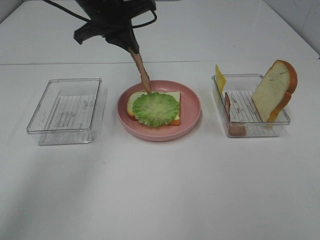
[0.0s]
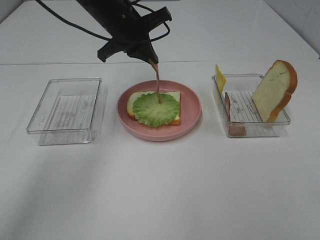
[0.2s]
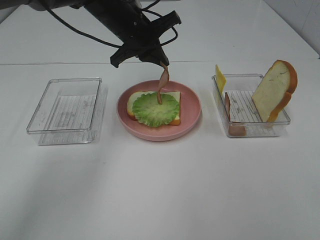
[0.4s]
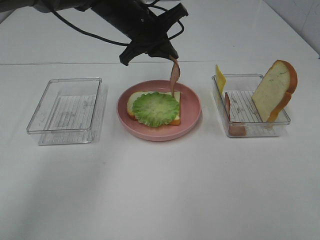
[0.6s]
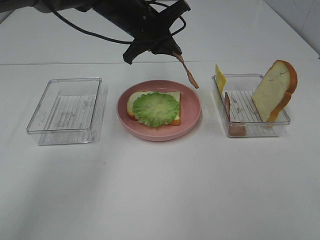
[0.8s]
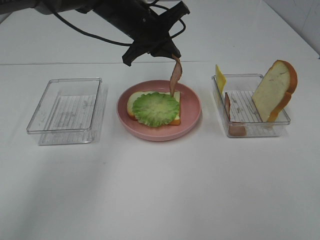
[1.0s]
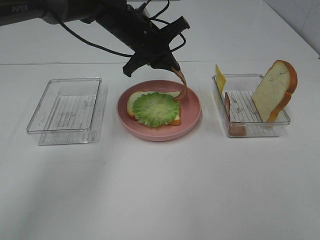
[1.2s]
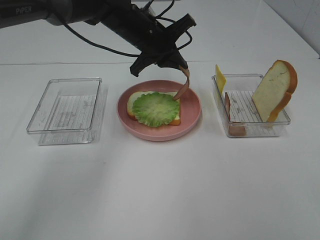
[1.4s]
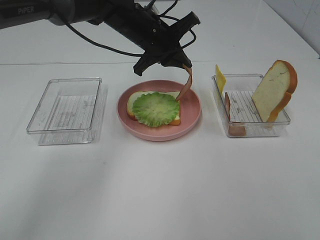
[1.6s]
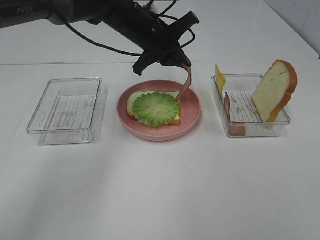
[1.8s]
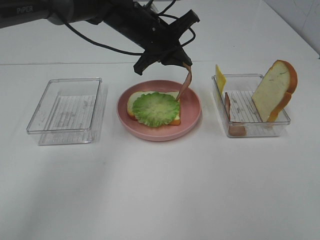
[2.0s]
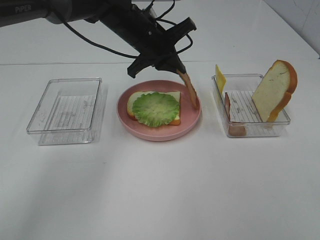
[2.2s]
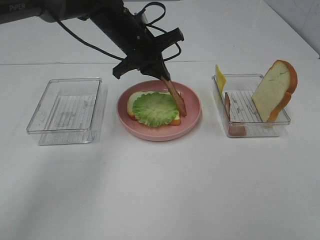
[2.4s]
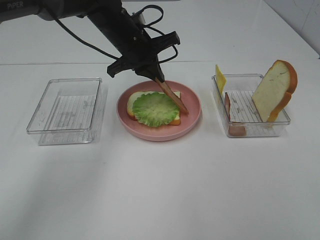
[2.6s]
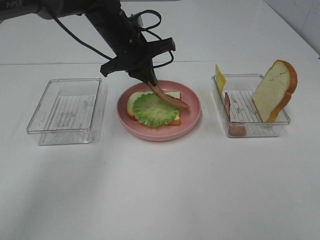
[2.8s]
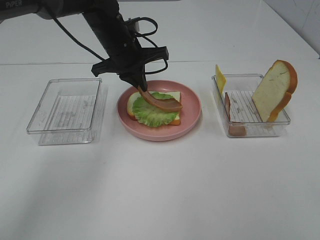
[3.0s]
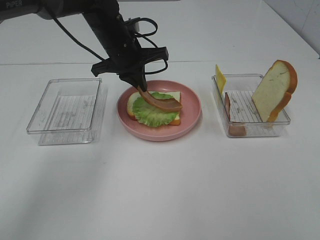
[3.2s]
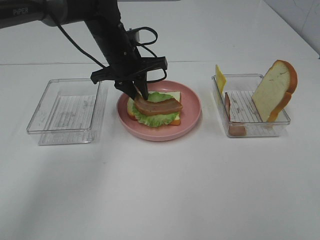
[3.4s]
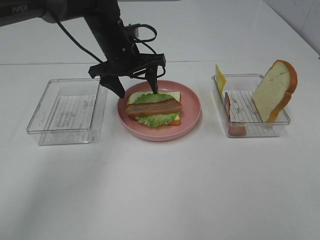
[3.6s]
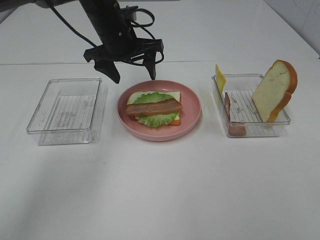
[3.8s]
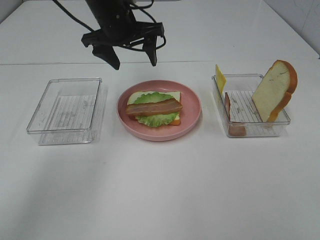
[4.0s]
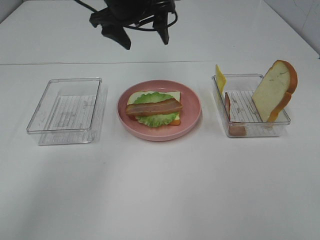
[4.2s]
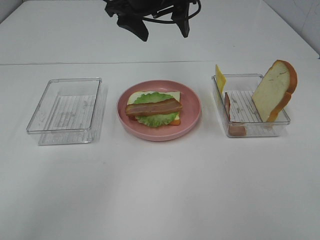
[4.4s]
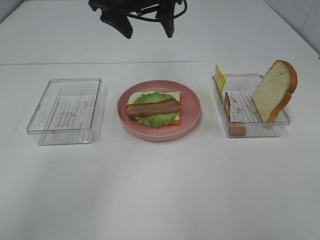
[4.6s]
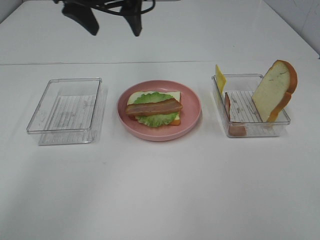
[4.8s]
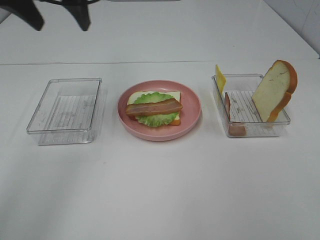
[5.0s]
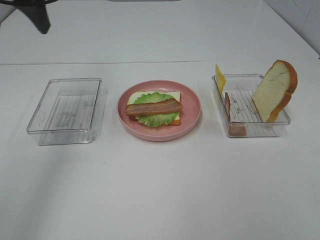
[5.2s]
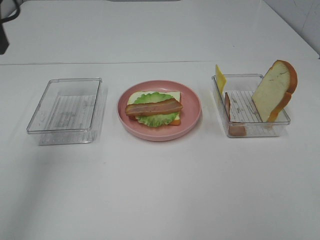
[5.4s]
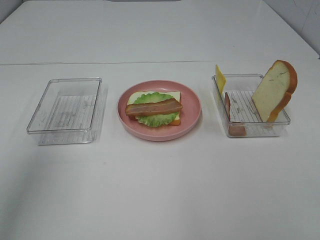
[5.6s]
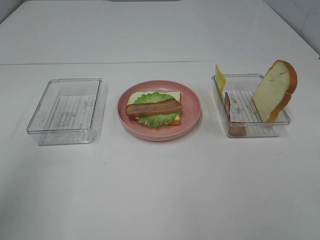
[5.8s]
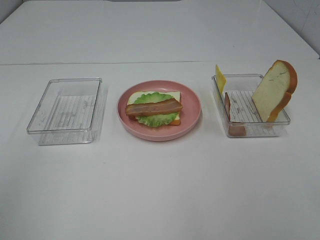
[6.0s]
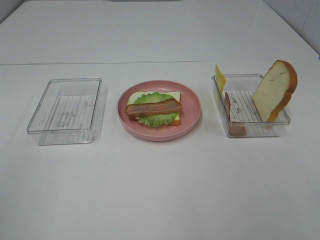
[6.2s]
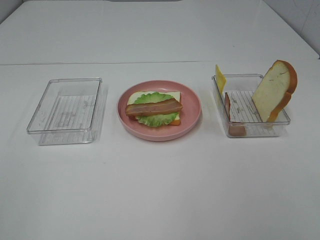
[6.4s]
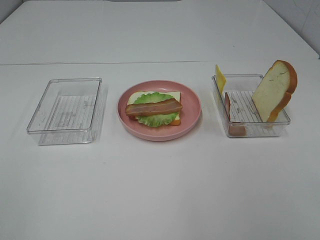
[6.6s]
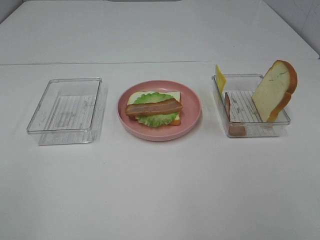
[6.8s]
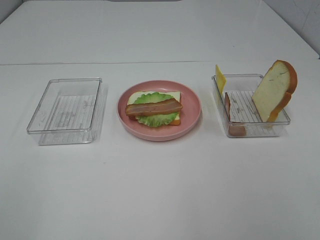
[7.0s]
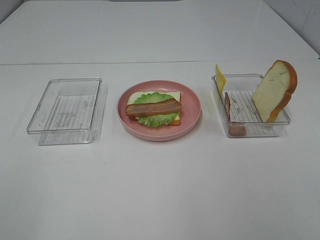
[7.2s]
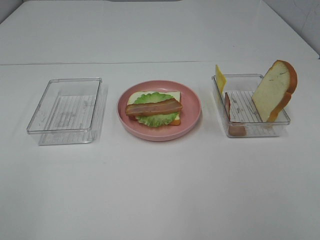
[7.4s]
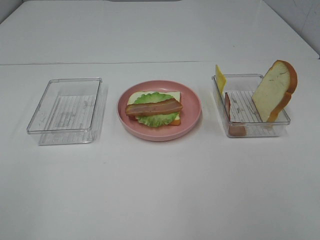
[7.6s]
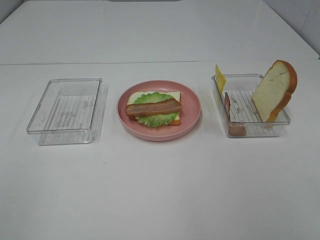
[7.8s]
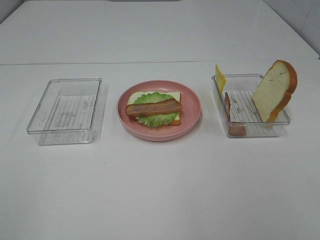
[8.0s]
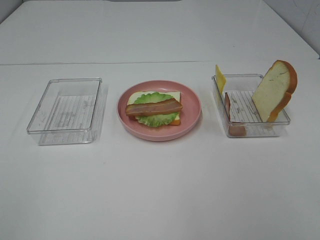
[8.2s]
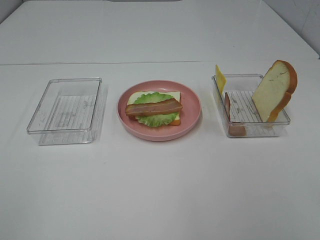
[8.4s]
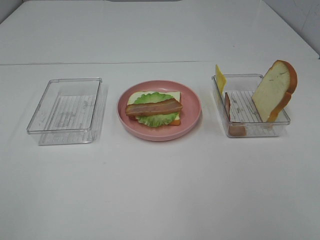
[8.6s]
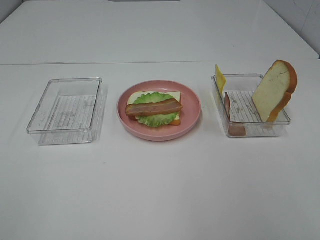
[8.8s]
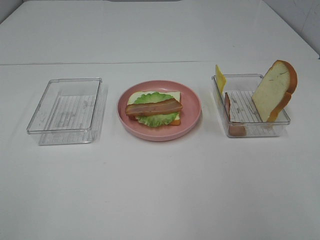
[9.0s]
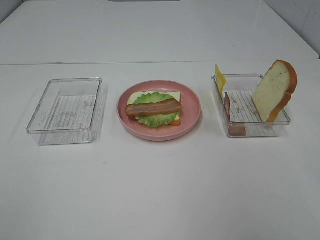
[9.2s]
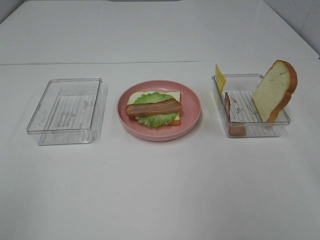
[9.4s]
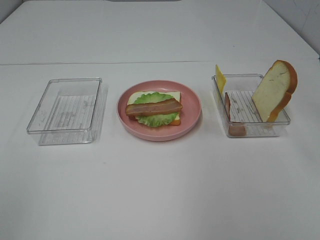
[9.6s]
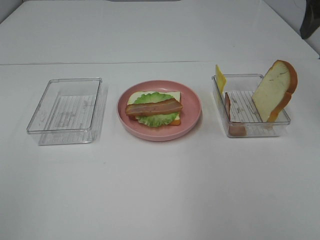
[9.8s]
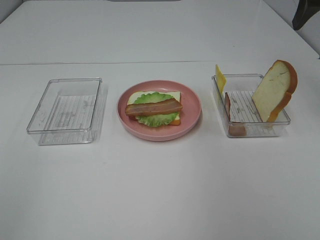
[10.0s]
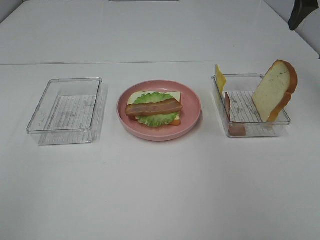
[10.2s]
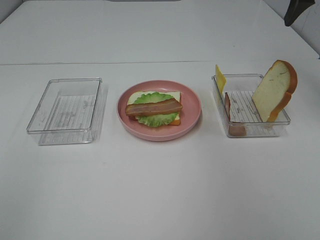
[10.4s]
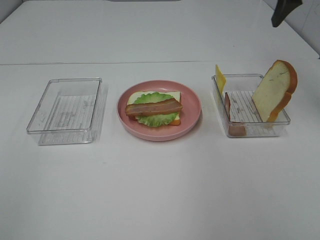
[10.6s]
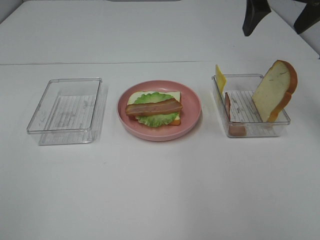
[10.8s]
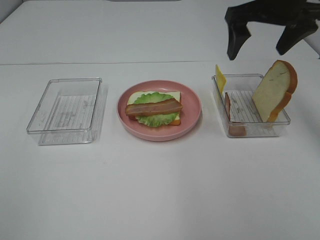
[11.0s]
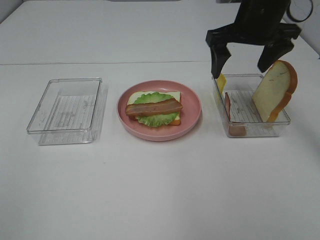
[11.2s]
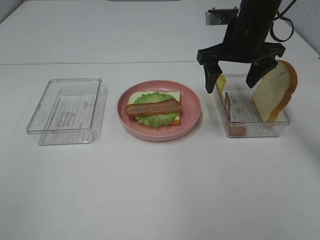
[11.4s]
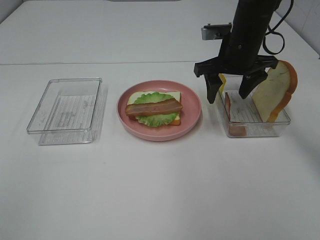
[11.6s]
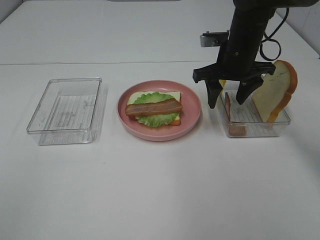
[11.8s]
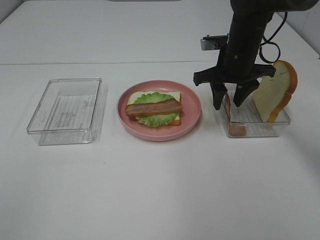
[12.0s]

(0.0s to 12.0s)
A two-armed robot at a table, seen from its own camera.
Task of the whole recording: Make sandwiches.
Step, 0.0s - 3.6s: Left hand:place bacon on lettuce slice.
0.0s - 1.6s: The left gripper moves to the right and downward, approximately 10 cm.
1.6s - 3.0s: The left gripper moves some 5 cm.
3.0s - 4.4s: The left gripper shifts some 10 cm upward, and opens up.
4.4s - 6.0s: The left gripper moves backward and to the left, some 40 cm.
9.0s - 10.4s: The right gripper is displaced forward by some 30 cm.
10.4s - 12.0s: The right gripper shifts approximately 20 cm downward and to the left, and closes its fingers.

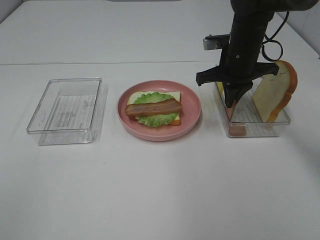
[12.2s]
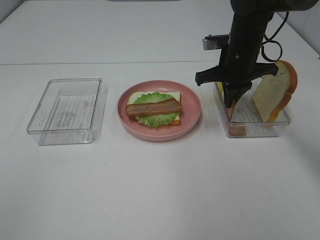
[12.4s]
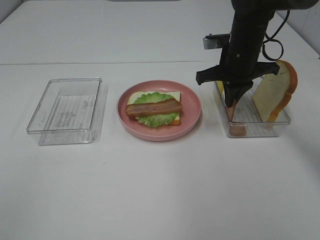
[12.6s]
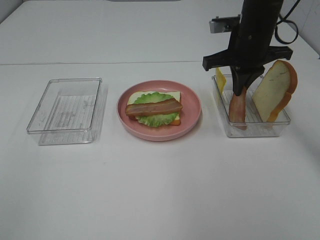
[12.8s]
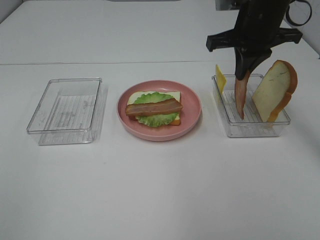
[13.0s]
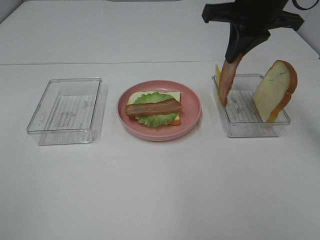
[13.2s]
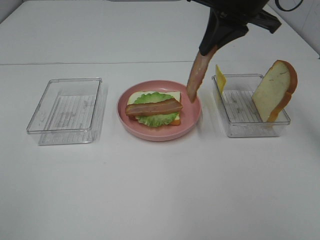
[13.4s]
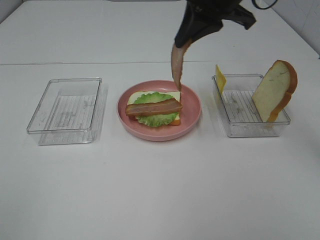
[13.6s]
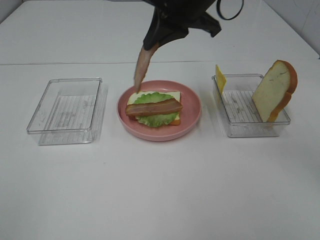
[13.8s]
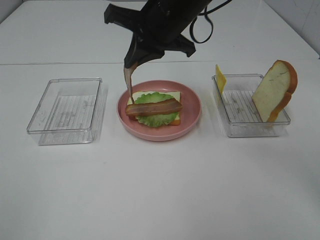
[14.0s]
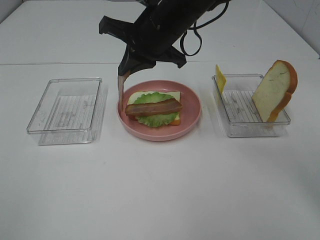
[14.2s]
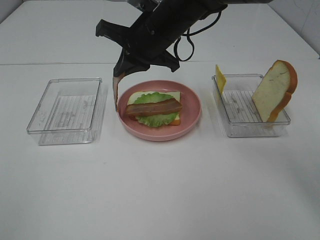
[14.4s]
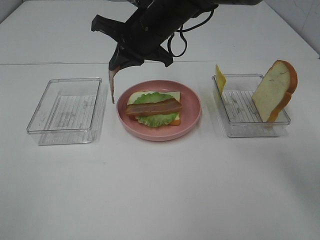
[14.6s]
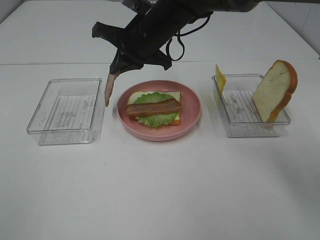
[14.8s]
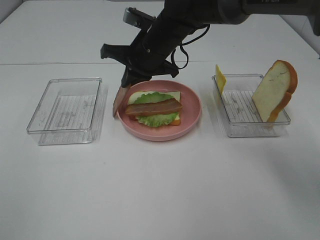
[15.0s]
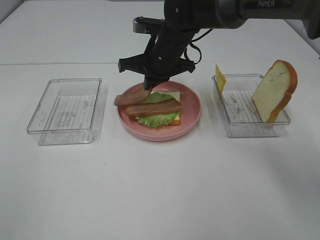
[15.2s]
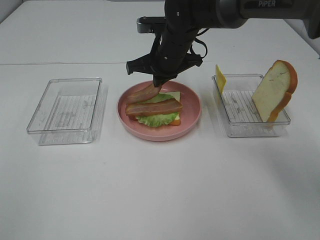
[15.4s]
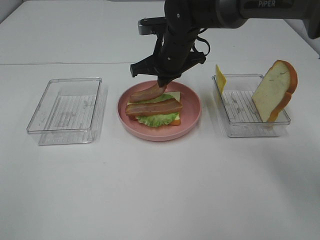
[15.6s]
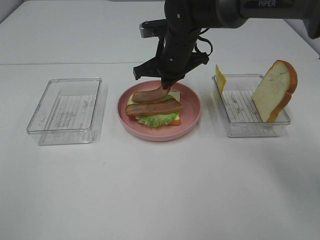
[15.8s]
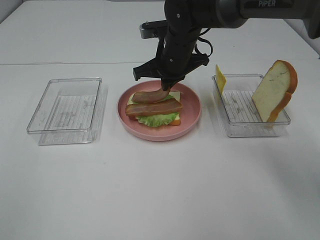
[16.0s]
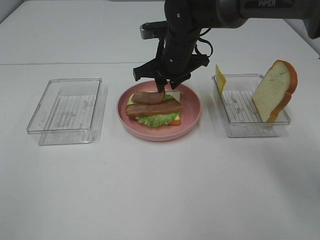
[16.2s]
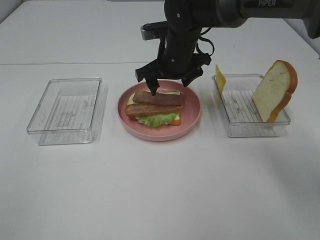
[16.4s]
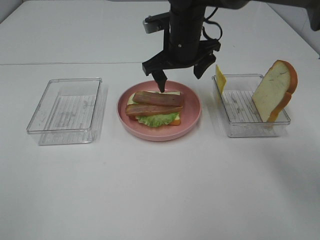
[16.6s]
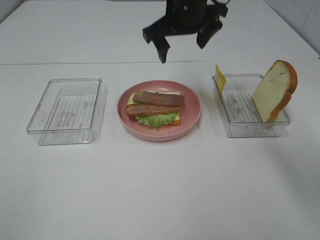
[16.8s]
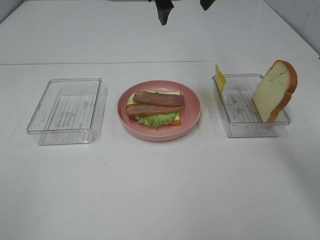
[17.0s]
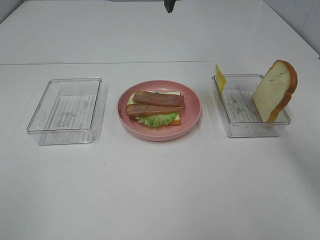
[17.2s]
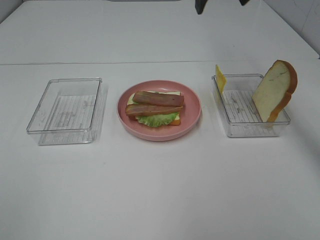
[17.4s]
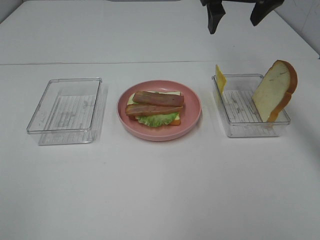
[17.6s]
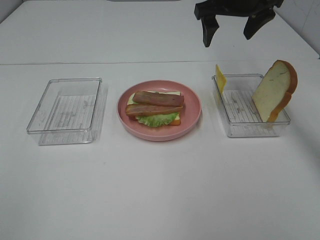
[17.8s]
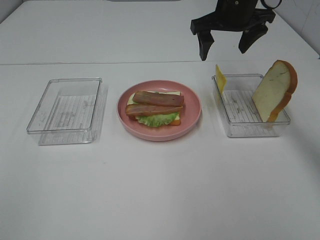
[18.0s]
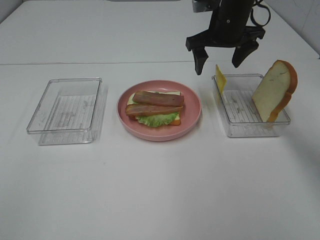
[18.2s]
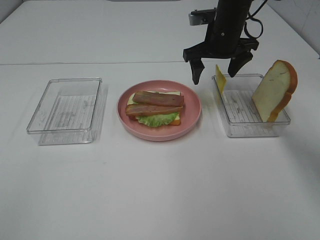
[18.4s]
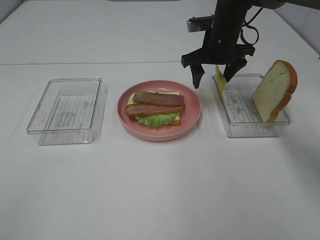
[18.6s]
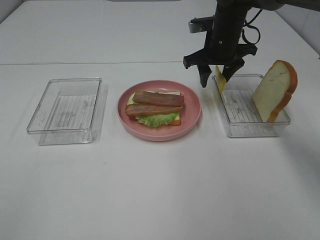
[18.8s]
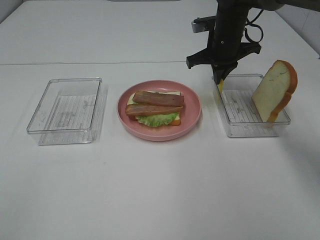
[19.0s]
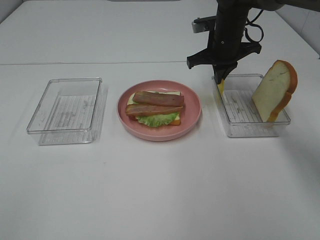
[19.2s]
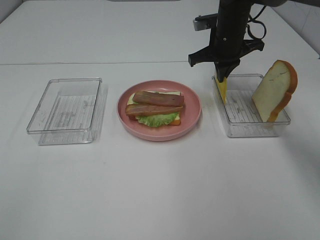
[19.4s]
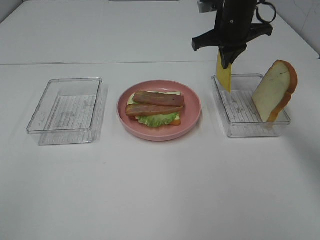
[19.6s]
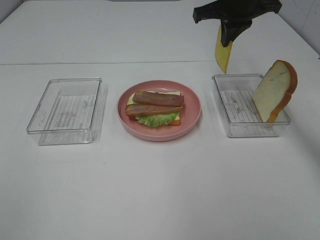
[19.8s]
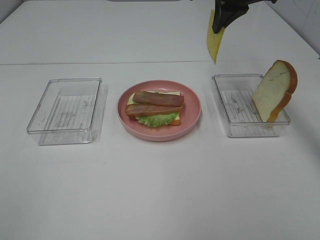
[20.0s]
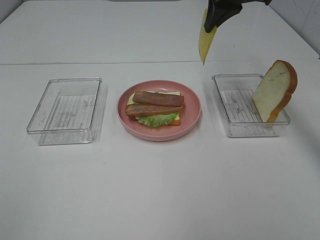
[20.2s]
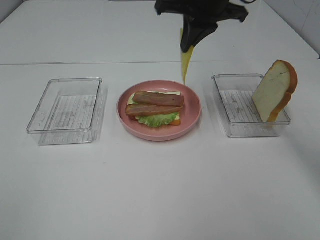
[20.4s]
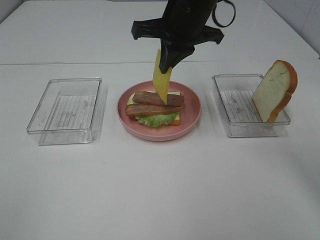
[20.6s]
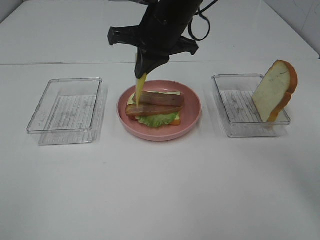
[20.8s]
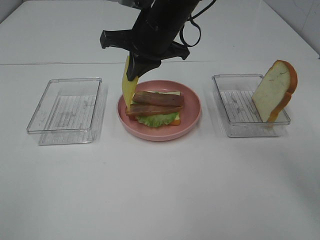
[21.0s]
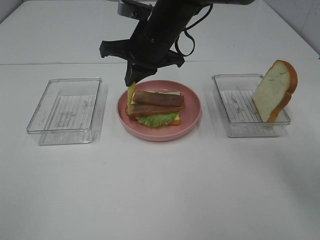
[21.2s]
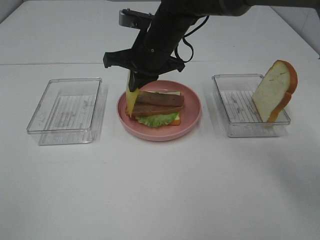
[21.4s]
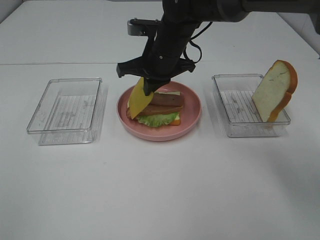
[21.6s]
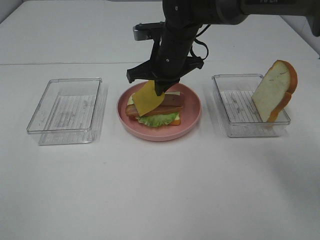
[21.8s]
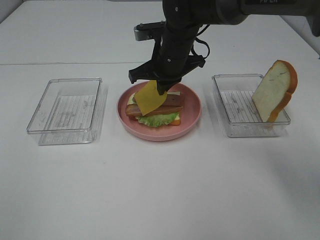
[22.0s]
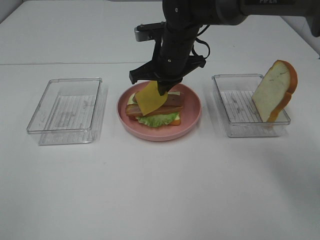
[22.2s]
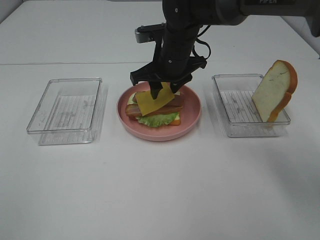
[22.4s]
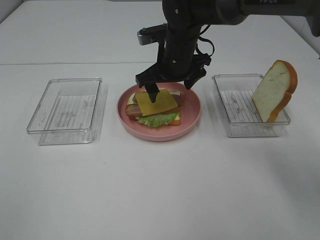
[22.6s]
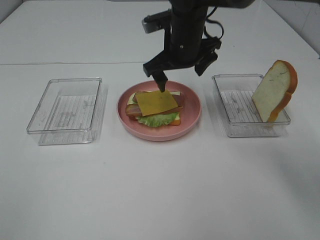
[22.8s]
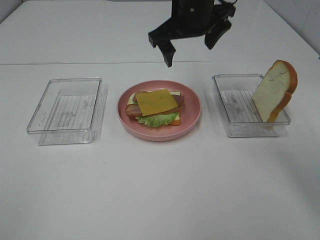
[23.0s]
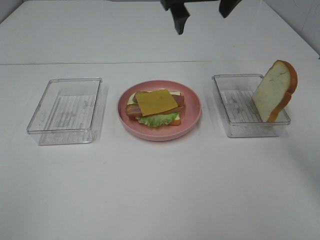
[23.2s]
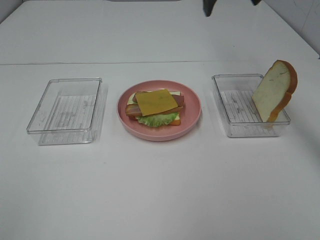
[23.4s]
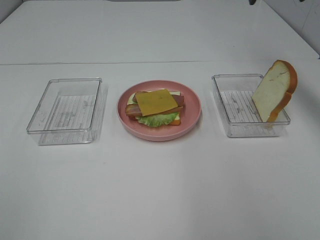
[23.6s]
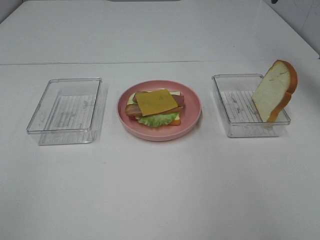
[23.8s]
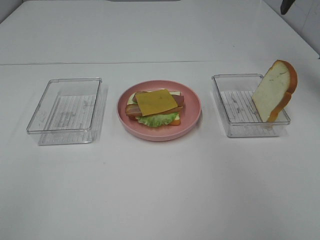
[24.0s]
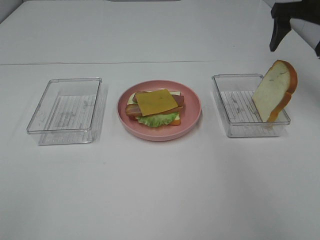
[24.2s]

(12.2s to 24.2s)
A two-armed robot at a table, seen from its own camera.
Task of the whole recording: Make sandwiches.
Step, 12.8s - 16.6s: Right hand:place bacon on bacon.
Step, 16.8s - 19.0s: Right hand:grab the cheese slice.
Step, 19.2s - 22.8s: Right hand:place the cheese slice on top of the bacon.
12.2s - 13.8s: The right gripper moves upward, to the left and backward, approximately 15 cm.
13.8s - 15.2s: The right gripper goes about 15 cm downward and forward.
15.2s - 16.6s: The right gripper opens up.
16.6s - 18.2s: The right gripper goes some 10 cm to the right, and reaches about 15 cm upward, then returns.
18.2s - 19.8s: The right gripper heads upward, covering approximately 5 cm, and closes.
19.8s - 21.2s: The right gripper moves to the left and downward, approximately 15 cm.
21.2s - 22.6s: The right gripper moves approximately 5 cm, and opens.
22.6s - 24.2s: The right gripper heads to the right, covering some 25 cm.
